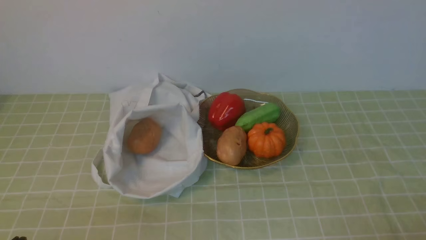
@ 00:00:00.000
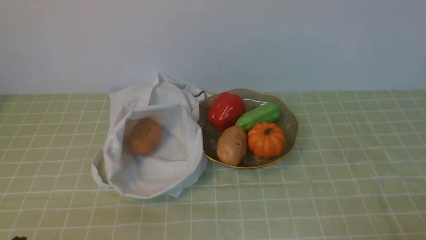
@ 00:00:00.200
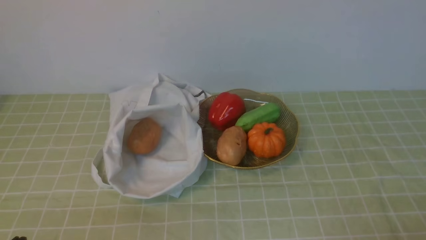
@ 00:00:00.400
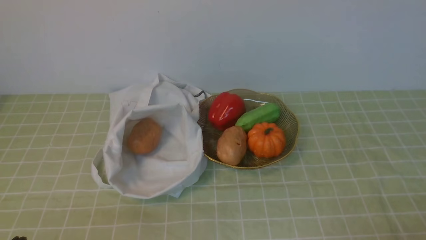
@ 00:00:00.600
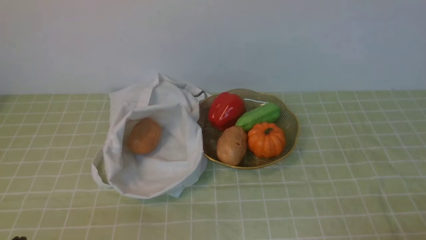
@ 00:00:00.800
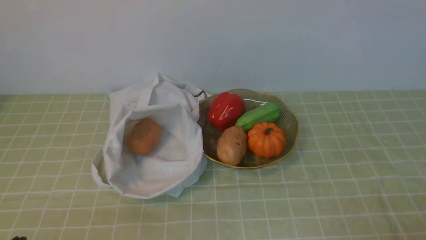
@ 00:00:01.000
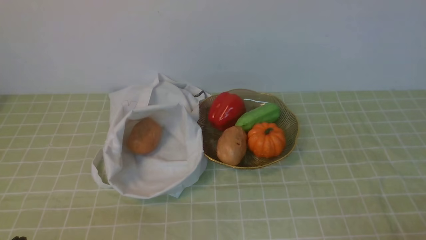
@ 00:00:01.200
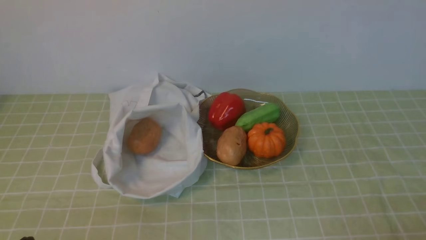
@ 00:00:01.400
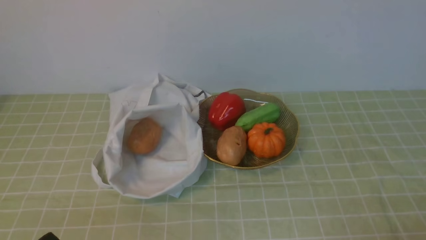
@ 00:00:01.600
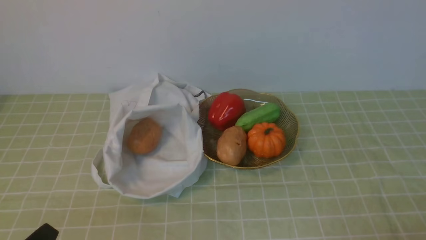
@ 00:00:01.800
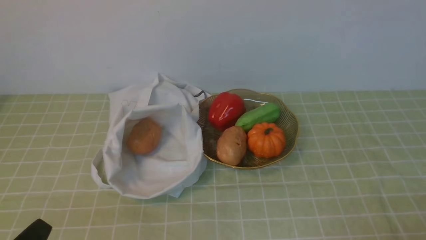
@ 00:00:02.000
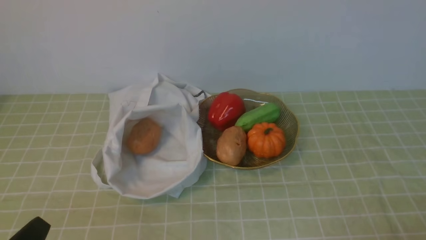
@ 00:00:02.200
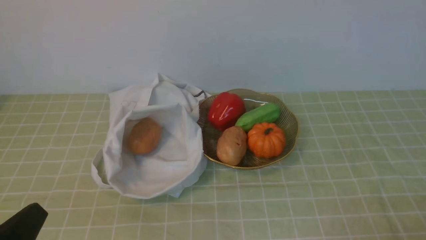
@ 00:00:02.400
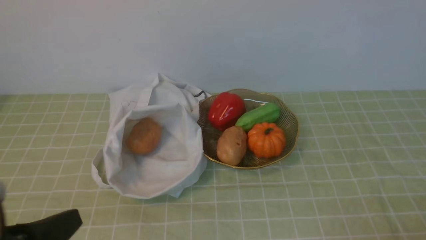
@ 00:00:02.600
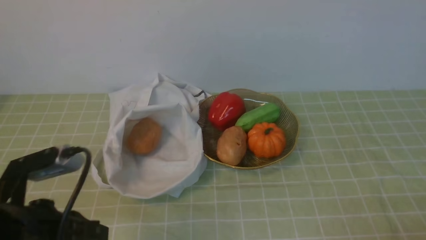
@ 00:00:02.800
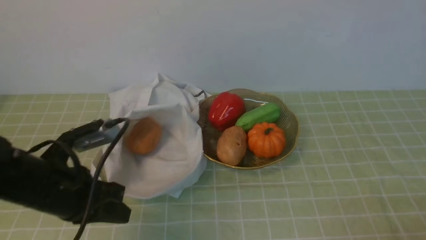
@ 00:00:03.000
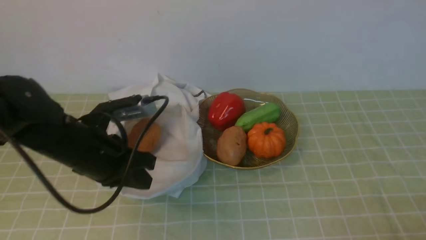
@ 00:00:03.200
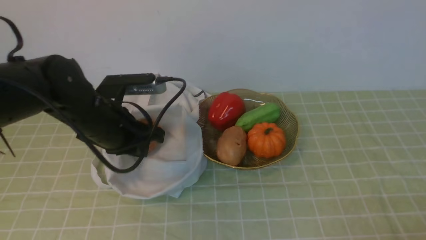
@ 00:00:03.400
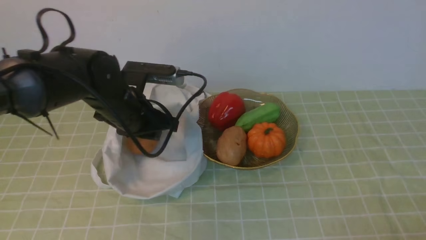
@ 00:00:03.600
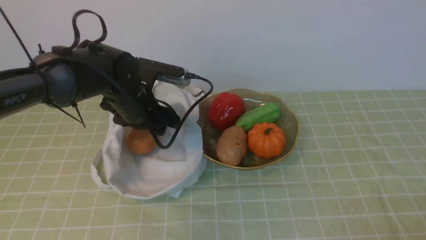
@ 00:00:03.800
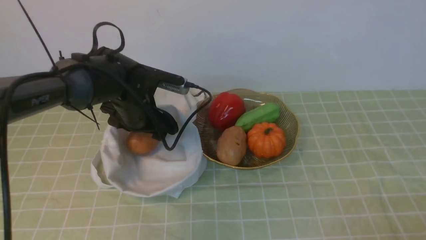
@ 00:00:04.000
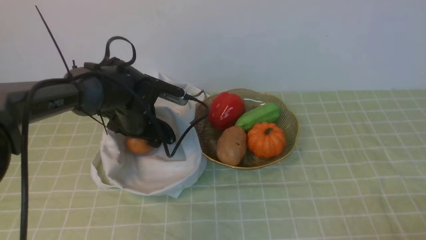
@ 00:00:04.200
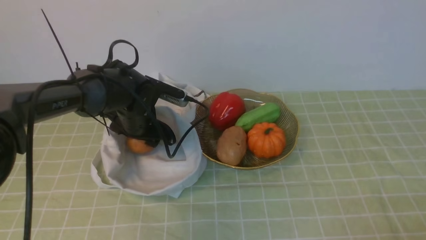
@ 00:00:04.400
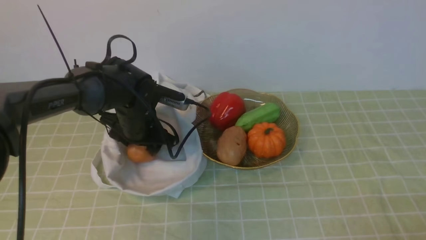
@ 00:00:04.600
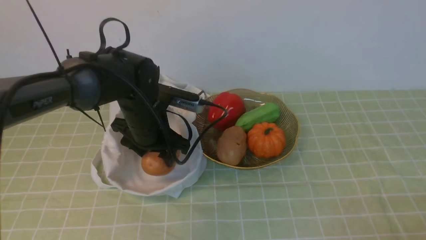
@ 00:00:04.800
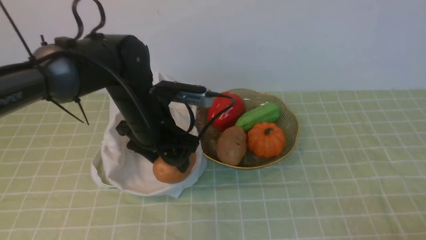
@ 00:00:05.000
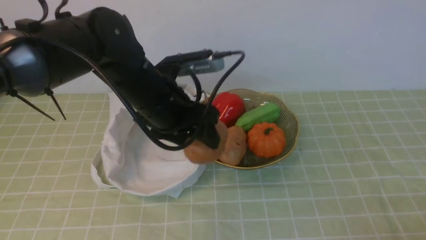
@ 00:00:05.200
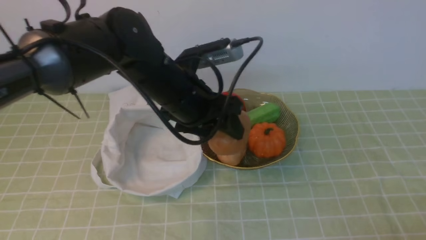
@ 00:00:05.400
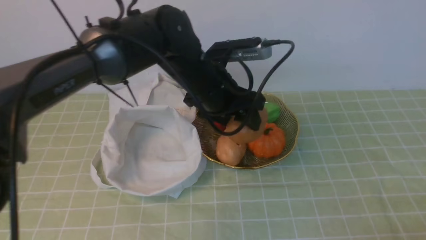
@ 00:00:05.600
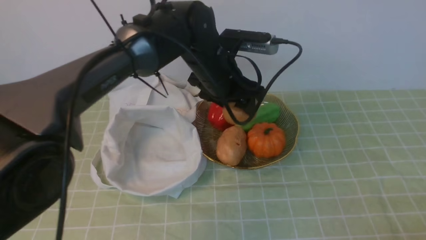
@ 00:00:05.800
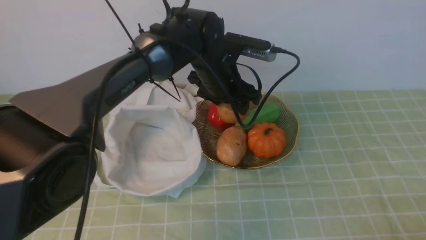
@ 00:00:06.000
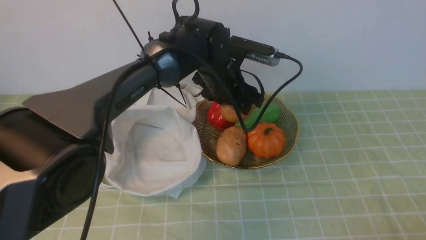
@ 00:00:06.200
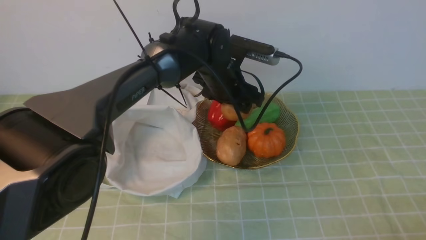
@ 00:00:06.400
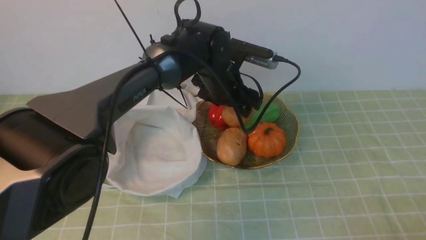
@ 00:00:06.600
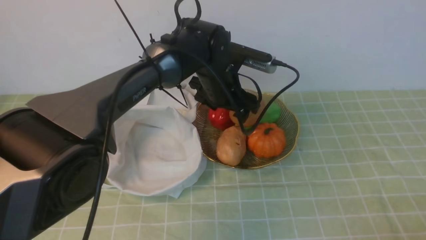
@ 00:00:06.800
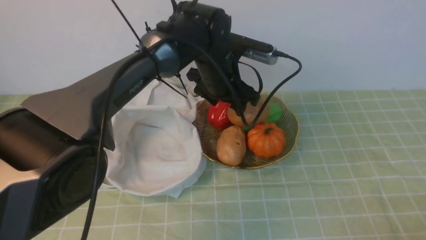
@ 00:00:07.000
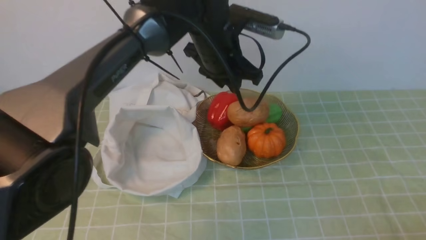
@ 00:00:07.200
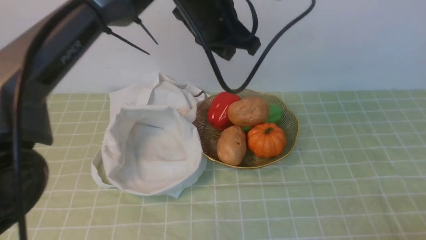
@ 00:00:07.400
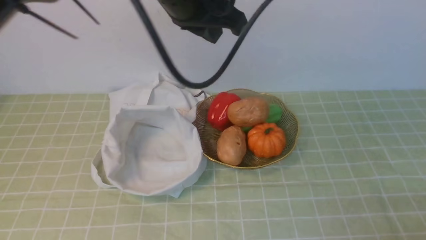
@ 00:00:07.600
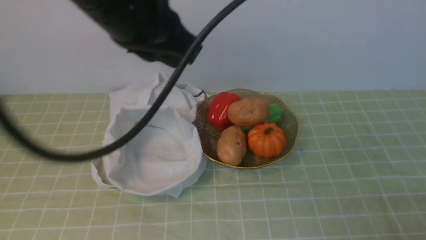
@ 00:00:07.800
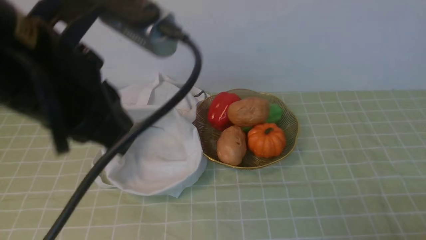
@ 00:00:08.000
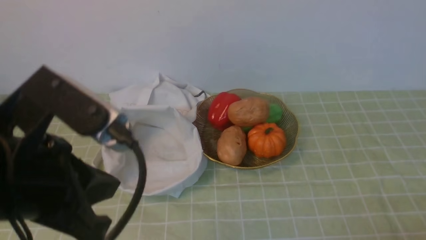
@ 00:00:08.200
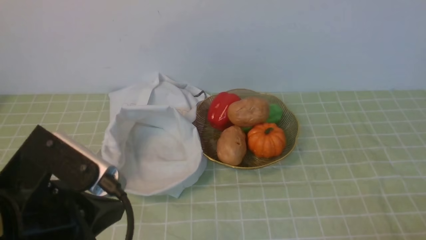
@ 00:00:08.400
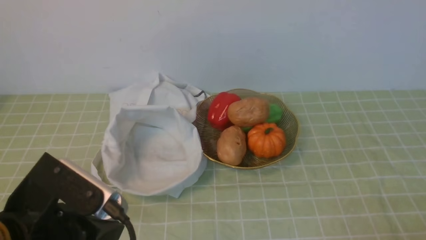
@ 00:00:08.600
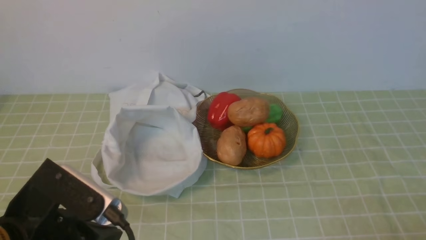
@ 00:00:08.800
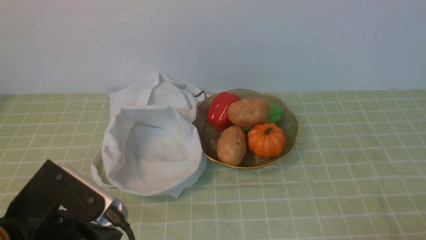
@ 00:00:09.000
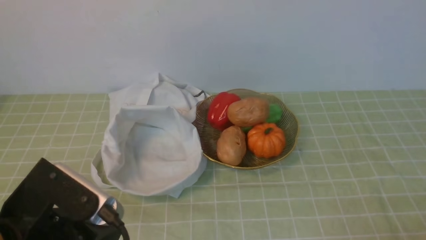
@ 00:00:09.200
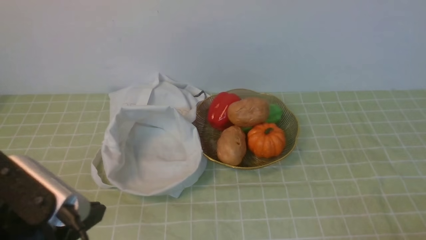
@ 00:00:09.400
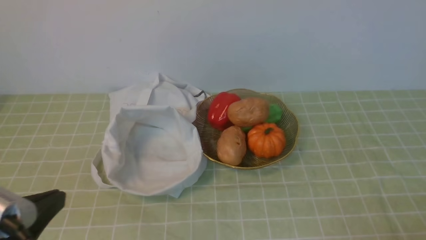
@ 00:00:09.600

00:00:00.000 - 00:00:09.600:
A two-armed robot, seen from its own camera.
Task of the whole recording: take vegetables from bag on green coffee tablecloth place on plate.
Step, 00:00:00.000 - 00:00:04.400: Grasp the potato with left gripper.
Step, 00:00:04.600 - 00:00:07.200: Place the potato on the plate with left gripper.
00:00:01.600 - 00:00:03.200: The left gripper heads forward, covering some 20 cm.
00:00:03.200 - 00:00:04.800: The left gripper shifts approximately 10 cm forward and to the right, and opens its fingers.
00:00:04.800 - 00:00:06.400: The left gripper heads to the right and forward, covering roughly 15 cm.
00:00:06.400 - 00:00:08.000: The left gripper shifts about 35 cm backward, upward and to the left, and closes its fingers.
00:00:08.000 - 00:00:09.600: The left gripper travels downward, backward and to the left by some 20 cm.

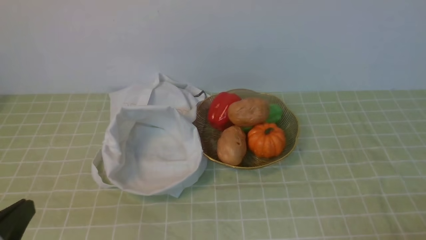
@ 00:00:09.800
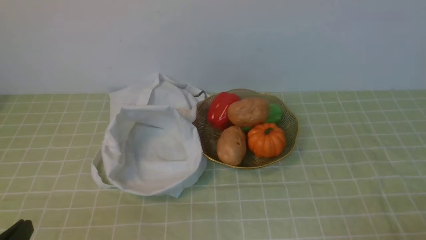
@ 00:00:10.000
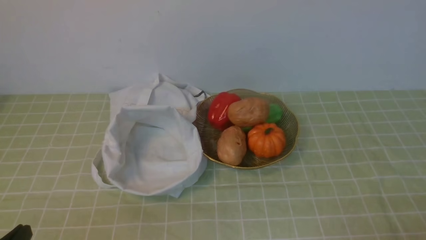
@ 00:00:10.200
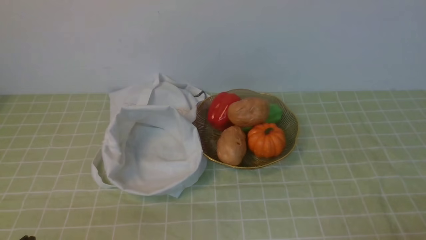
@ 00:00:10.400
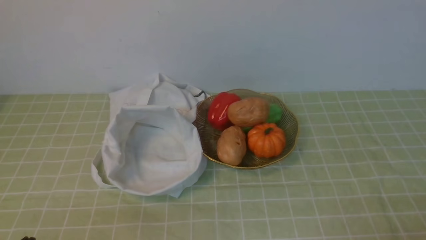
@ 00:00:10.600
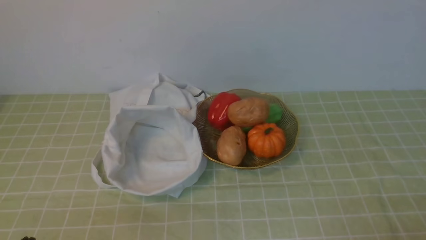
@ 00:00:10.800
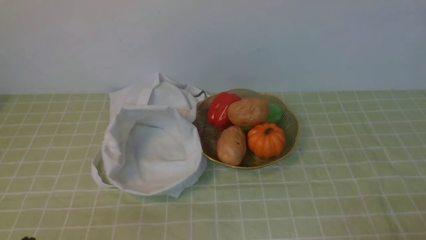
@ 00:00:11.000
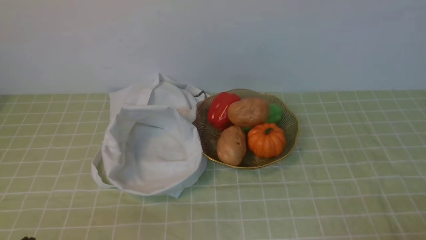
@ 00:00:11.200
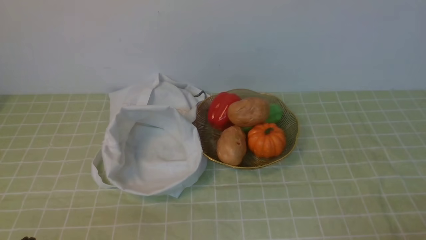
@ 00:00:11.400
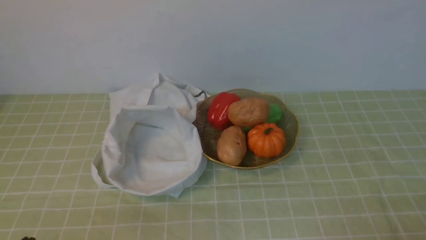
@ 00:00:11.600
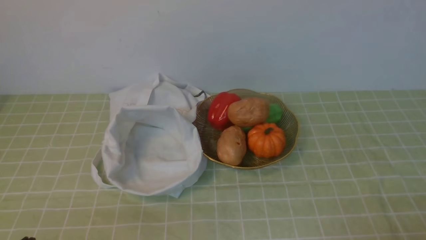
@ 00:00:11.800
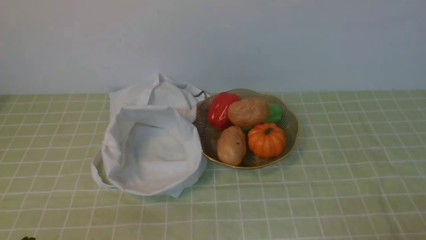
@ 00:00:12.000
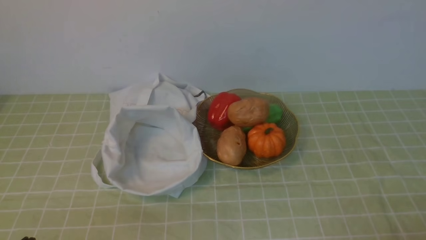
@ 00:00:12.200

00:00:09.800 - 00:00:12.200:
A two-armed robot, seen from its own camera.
Task of the whole recording: take vegetables from bag on green coffee tablecloth place on plate.
00:00:09.800 - 00:00:11.000: The left gripper goes about 5 cm downward.
00:00:11.000 - 00:00:12.200: The two grippers keep their place.
